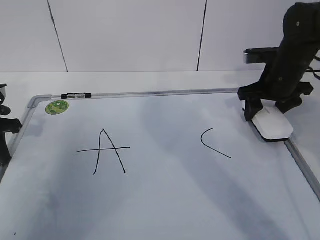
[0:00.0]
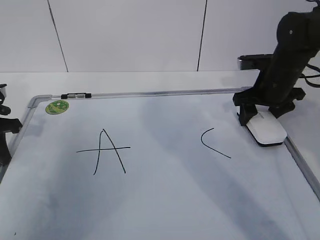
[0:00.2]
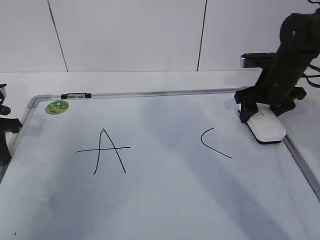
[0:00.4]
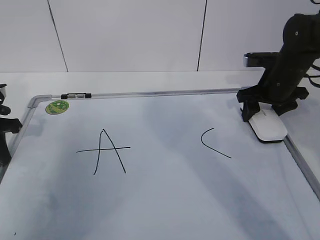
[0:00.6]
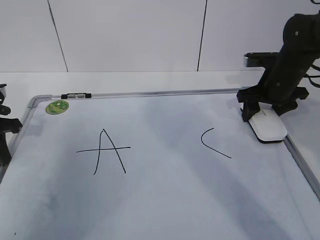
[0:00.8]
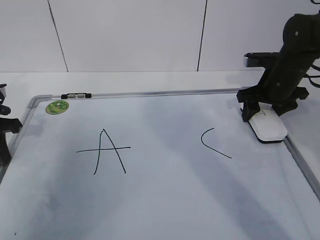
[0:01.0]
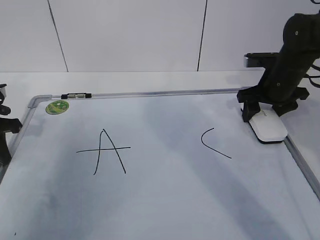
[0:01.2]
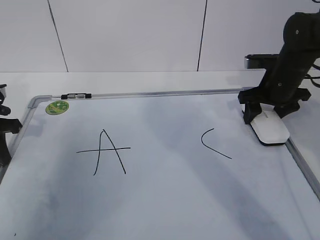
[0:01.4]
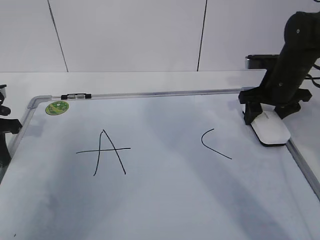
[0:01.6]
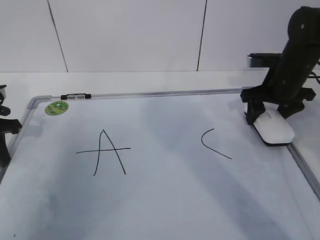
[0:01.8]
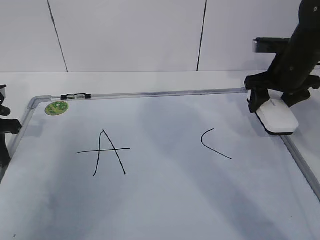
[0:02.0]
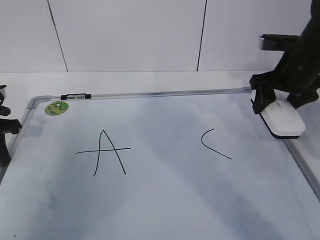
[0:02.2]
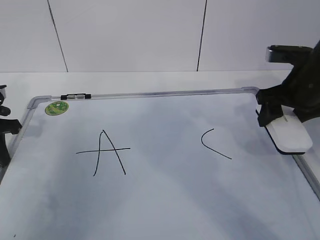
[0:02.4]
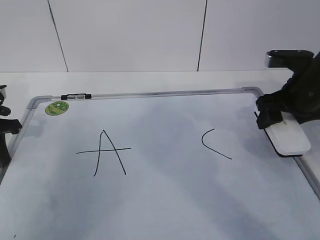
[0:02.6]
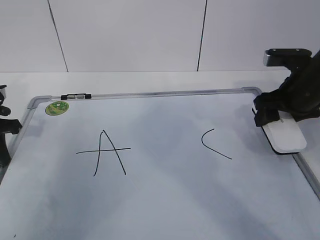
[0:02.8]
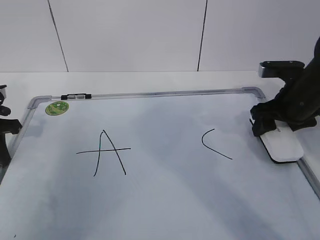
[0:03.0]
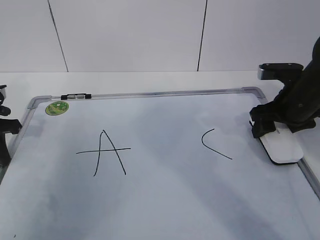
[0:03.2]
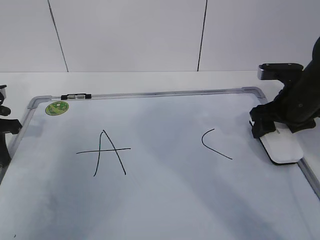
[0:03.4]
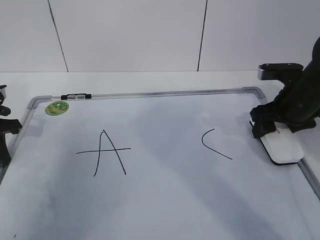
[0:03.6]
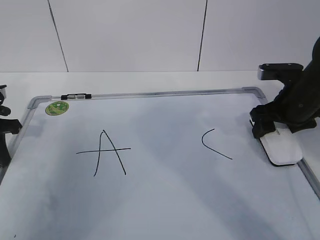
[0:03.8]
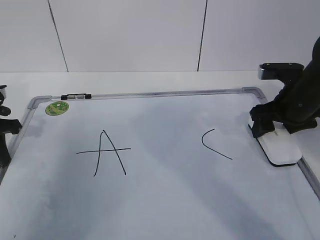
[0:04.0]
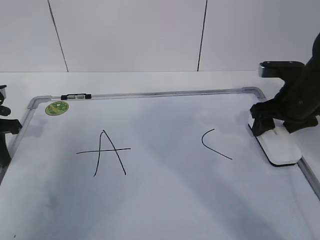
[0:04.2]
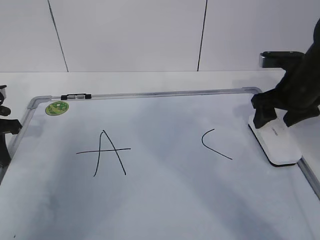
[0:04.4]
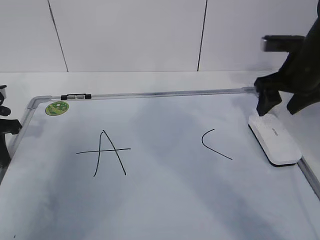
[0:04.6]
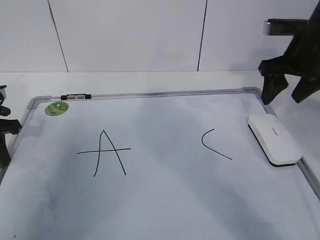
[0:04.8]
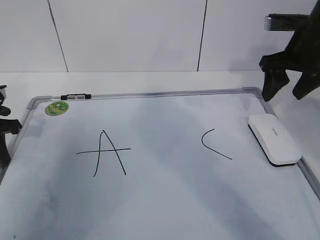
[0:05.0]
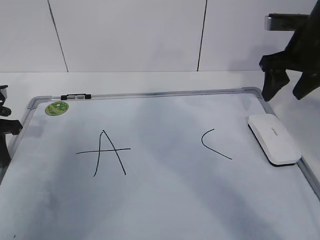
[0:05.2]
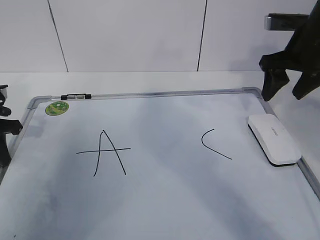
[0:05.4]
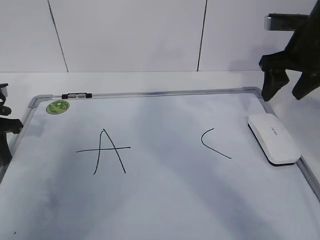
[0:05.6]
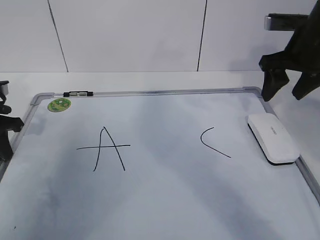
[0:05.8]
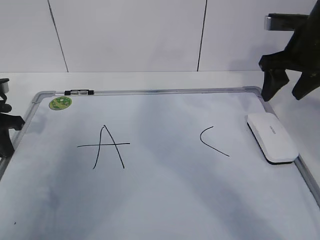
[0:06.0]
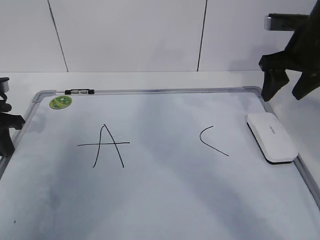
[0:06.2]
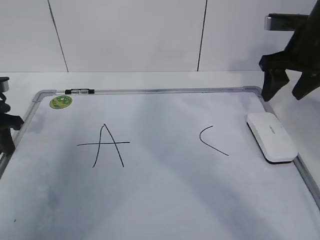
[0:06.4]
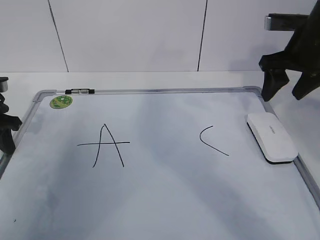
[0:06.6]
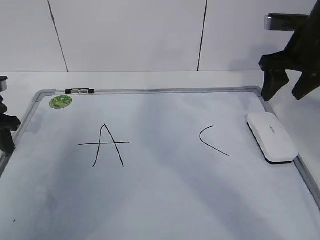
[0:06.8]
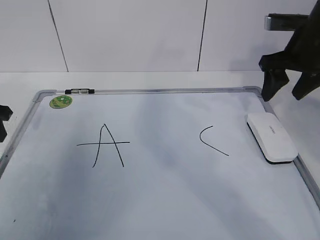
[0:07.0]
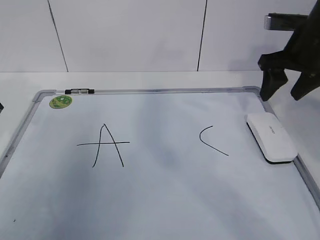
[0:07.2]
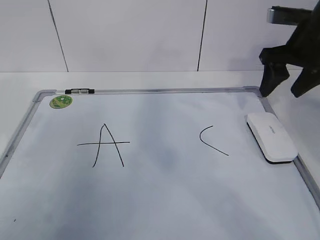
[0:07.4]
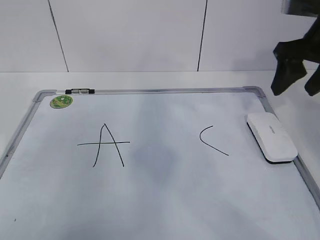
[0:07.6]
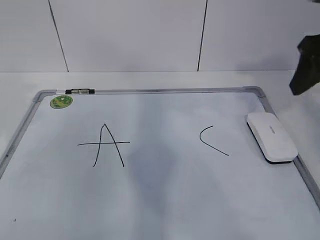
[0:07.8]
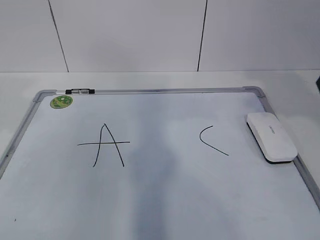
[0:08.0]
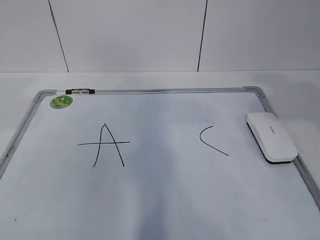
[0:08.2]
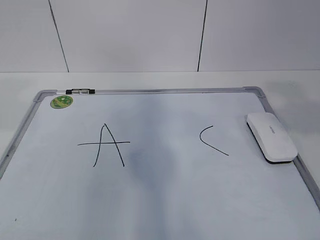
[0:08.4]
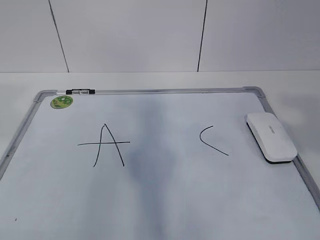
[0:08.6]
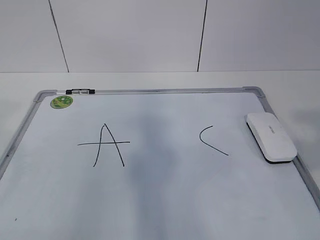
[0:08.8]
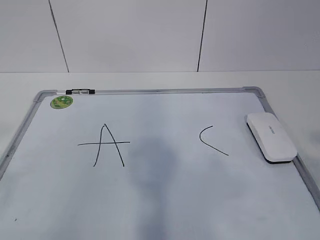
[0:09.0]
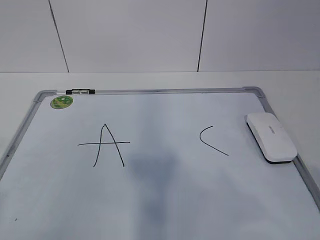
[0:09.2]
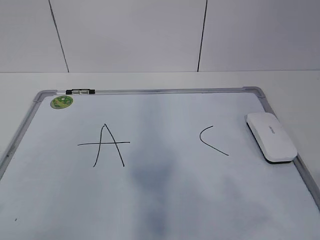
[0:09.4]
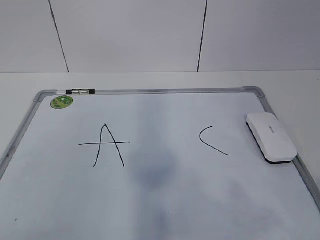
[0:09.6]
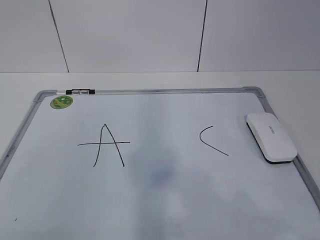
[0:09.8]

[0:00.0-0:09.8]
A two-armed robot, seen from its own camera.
Task of the whole recording: pick up the eraser on the blackboard and erase the letter "B".
0:00.0 to 0:01.4: The grippers stay close to where they were, moving slightly.
0:01.4 to 0:02.8: The right gripper is displaced backward by approximately 5 cm.
0:02.8 to 0:04.2: The grippers move only a little.
0:04.2 to 0:05.6: The right gripper shifts approximately 10 cm upward.
0:05.6 to 0:07.0: The left gripper opens up.
0:07.0 to 0:08.4: The right gripper moves backward and upward, some 30 cm. Meanwhile the left gripper is displaced upward and backward by roughly 30 cm.
0:08.4 to 0:09.8: The right gripper is displaced backward and downward by some 15 cm, and closes.

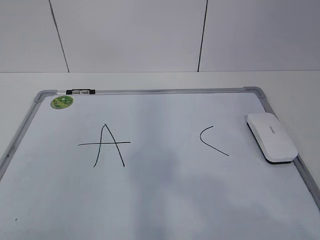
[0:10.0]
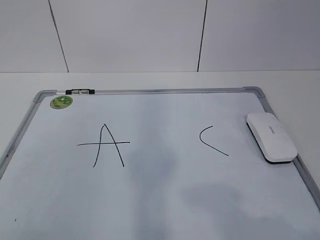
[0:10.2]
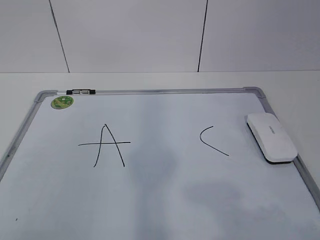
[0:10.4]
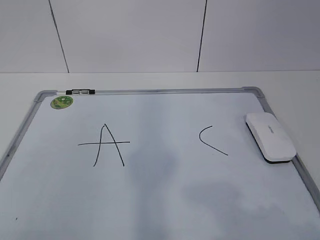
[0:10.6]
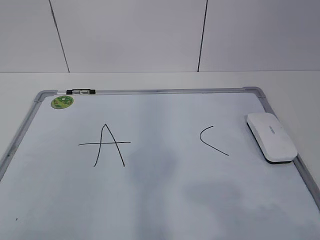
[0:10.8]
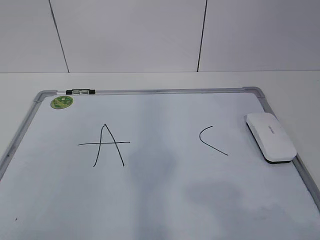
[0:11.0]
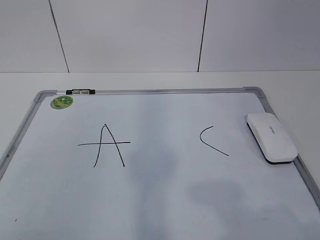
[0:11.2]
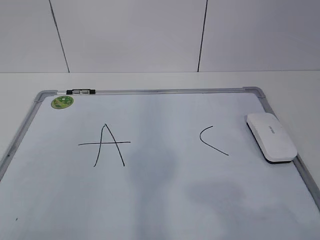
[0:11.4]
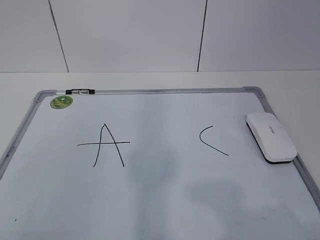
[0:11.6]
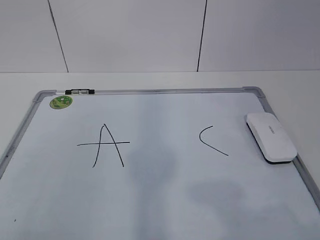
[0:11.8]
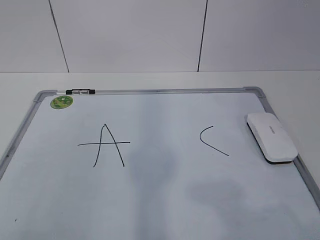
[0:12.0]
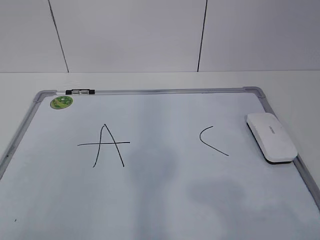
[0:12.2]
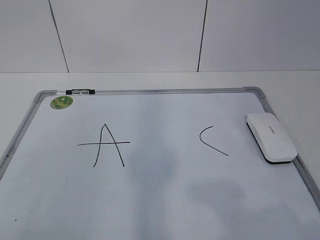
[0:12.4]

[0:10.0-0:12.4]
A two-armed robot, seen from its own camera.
Task of the whole recording: pick up the eraser on the blackboard and erase the letter "B".
0:11.2 to 0:12.4: Both grippers stay about where they are.
